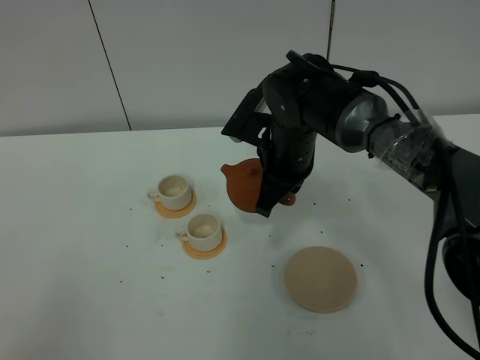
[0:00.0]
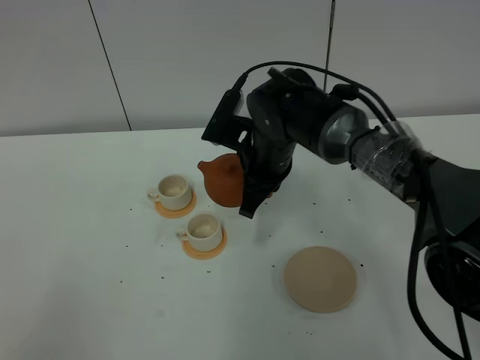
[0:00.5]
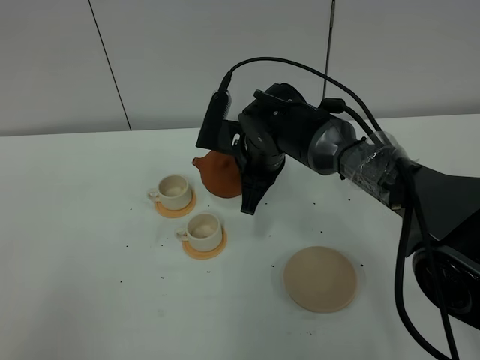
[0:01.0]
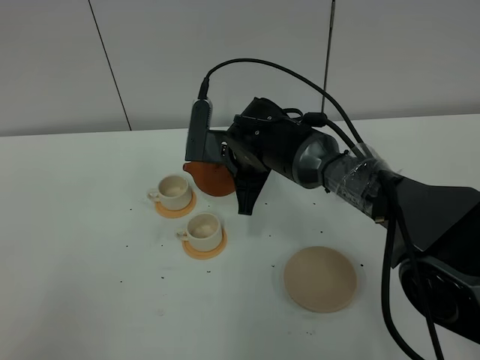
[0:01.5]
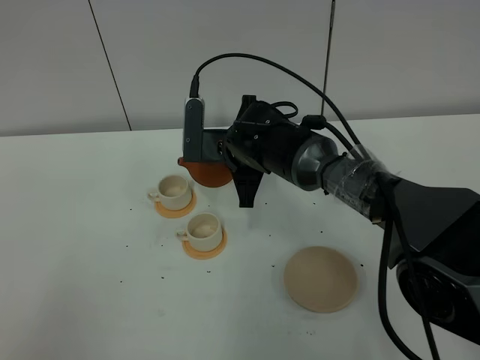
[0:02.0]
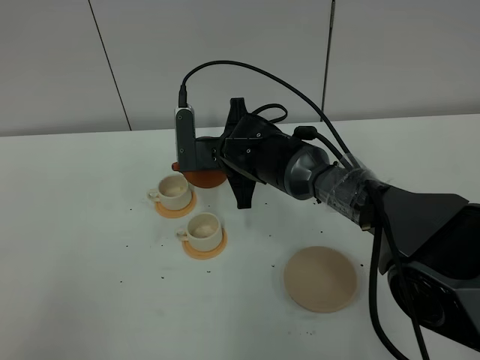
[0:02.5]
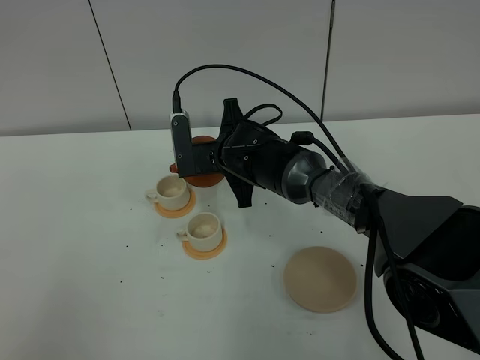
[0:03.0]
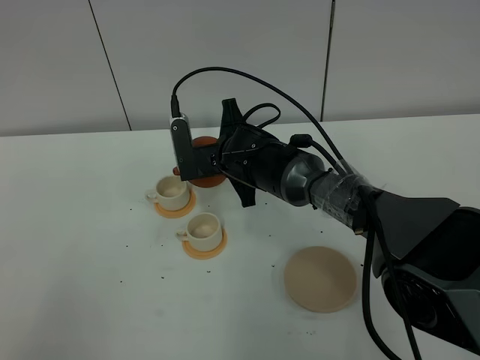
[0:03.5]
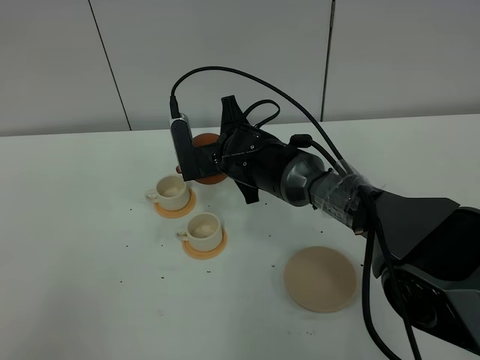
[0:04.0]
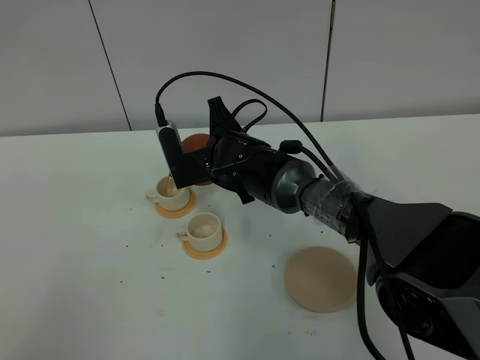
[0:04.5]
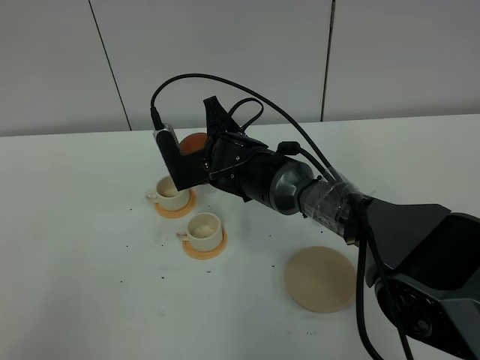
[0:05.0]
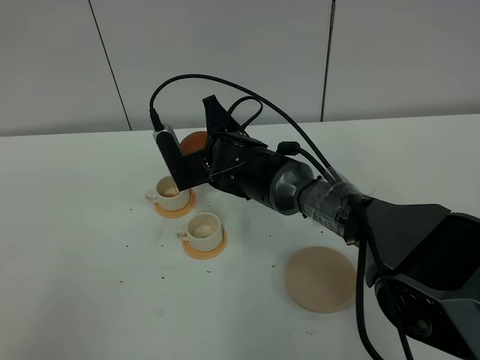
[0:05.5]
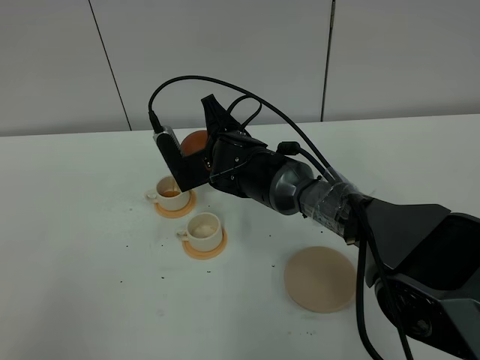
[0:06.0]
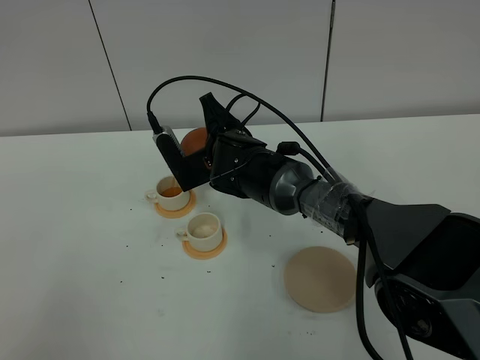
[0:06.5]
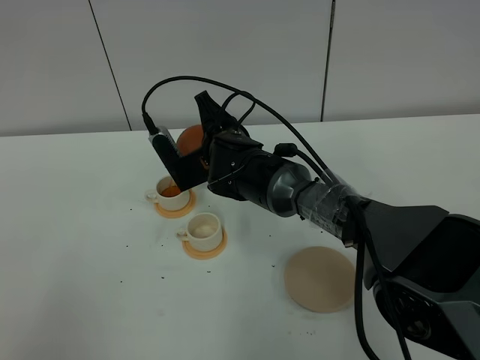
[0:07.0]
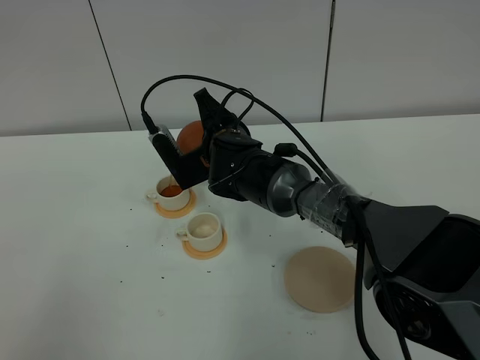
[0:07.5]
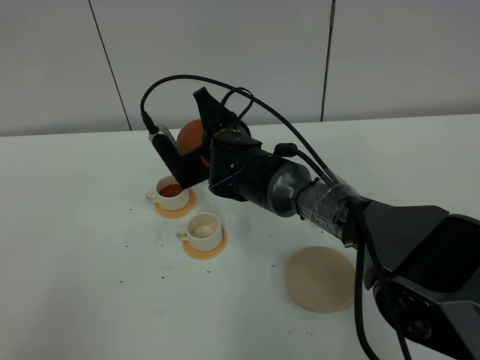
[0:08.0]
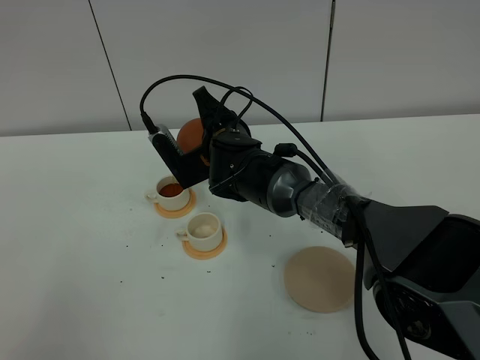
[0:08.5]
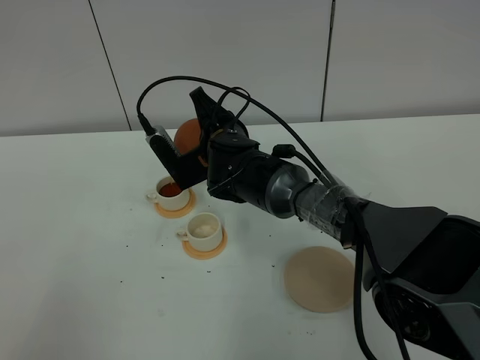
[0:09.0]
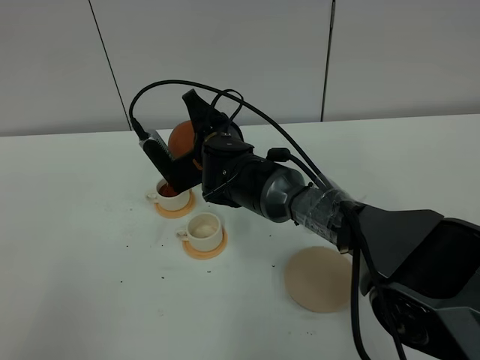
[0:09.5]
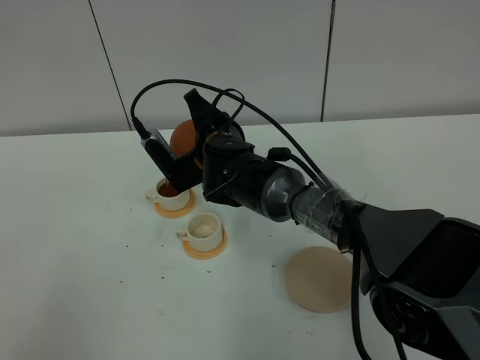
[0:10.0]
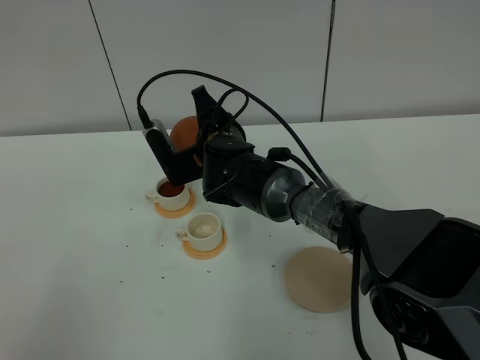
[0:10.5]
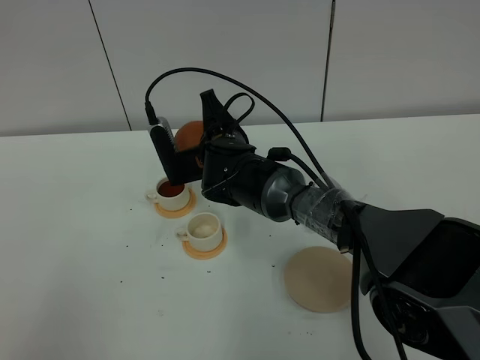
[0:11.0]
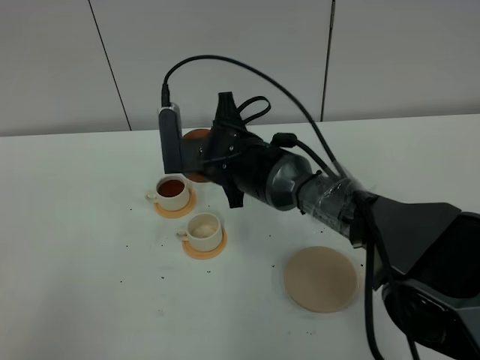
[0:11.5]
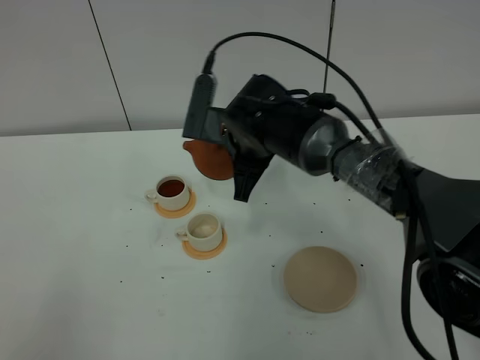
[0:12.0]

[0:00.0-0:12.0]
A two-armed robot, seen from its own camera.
Task of the whole recording: grasp the brown teapot and pour the tea into the two white teacups one by one, put the brown teapot back in its original place.
0.0 to 2.0 s: The right gripper heads to the left, covering some 5 cm.
2.0 to 4.0 s: The grippers make only small movements.
4.0 to 6.0 s: The grippers stay close to where they were, moving slightly.
6.0 to 8.0 s: There are only small adjustments of the grippers.
8.0 to 10.0 s: The two grippers keep their place.
10.0 to 12.0 s: The right gripper is displaced to the right by roughly 5 cm.

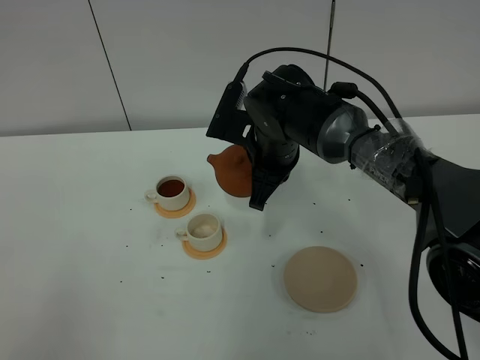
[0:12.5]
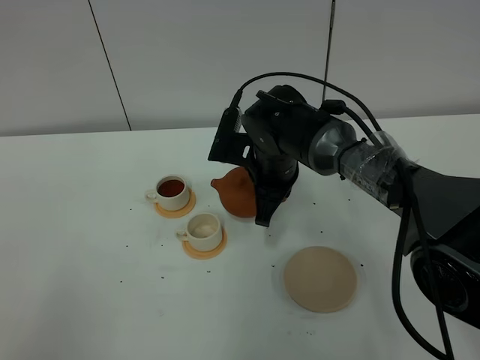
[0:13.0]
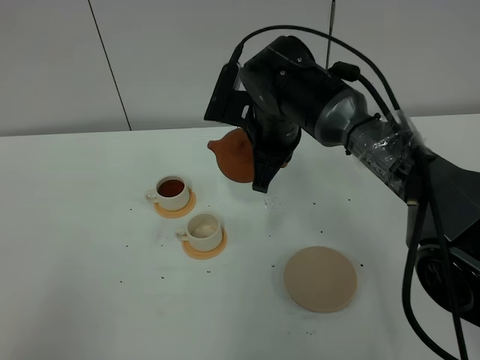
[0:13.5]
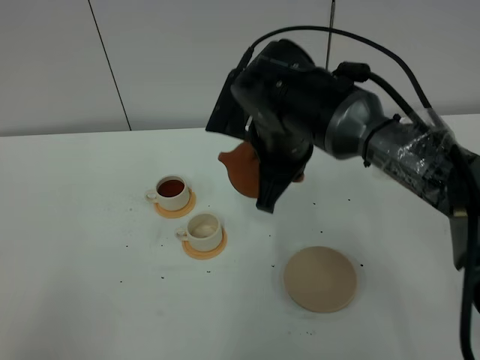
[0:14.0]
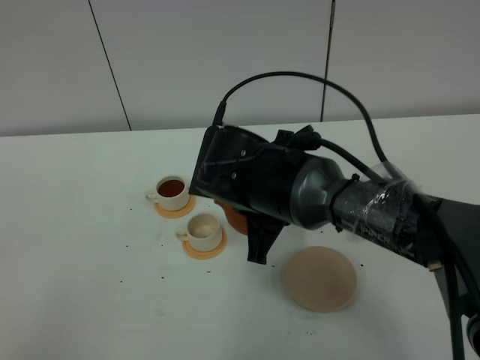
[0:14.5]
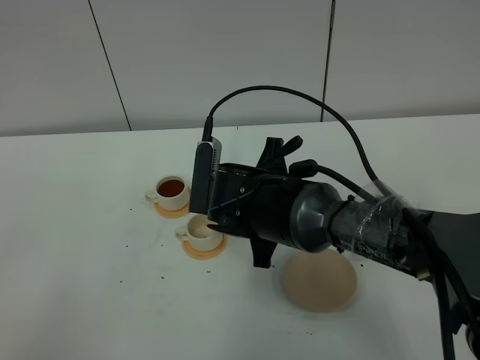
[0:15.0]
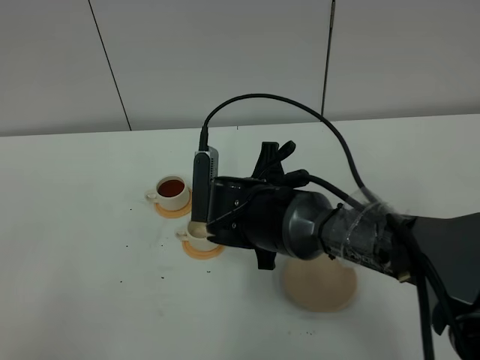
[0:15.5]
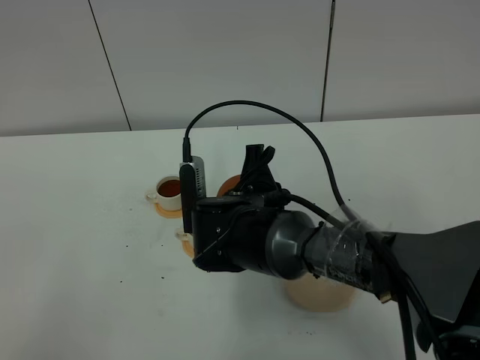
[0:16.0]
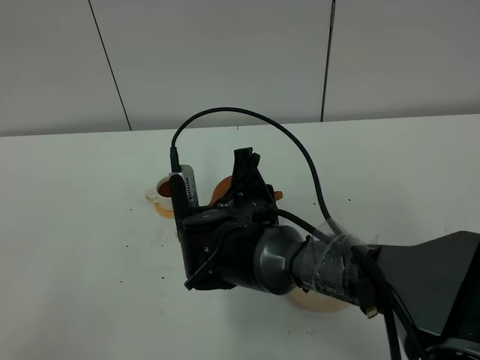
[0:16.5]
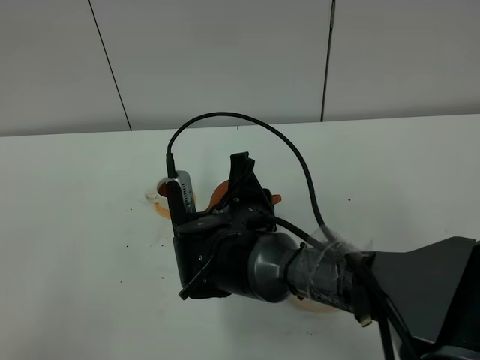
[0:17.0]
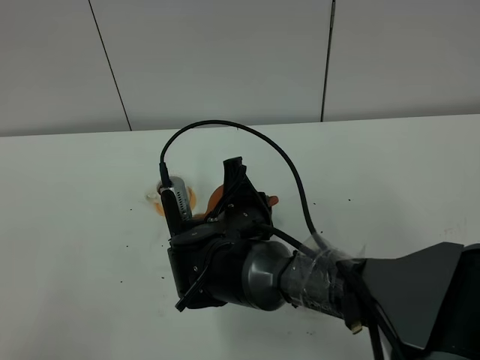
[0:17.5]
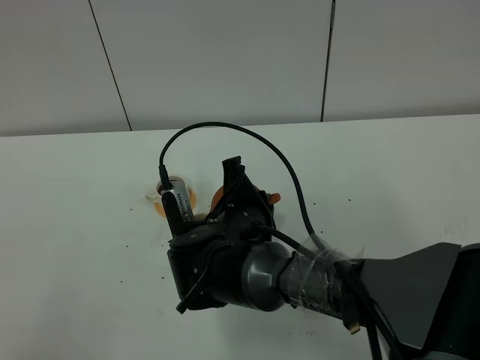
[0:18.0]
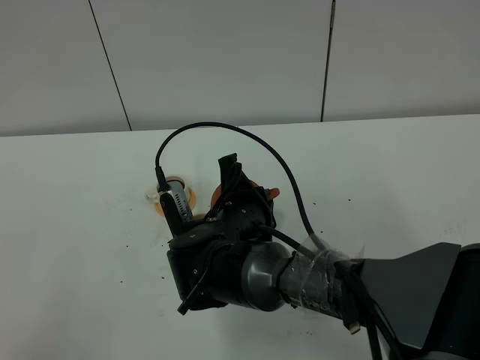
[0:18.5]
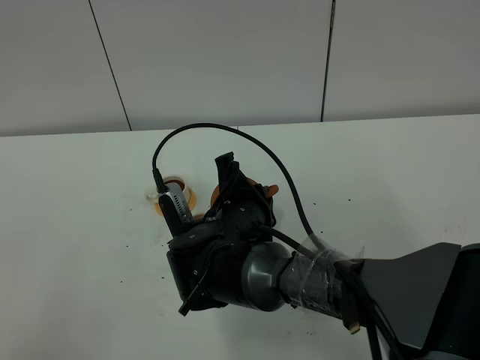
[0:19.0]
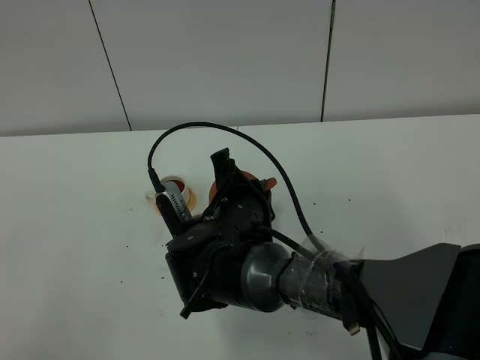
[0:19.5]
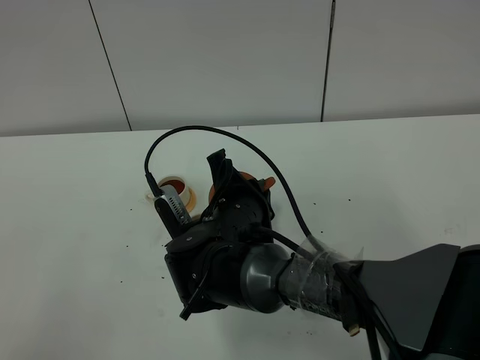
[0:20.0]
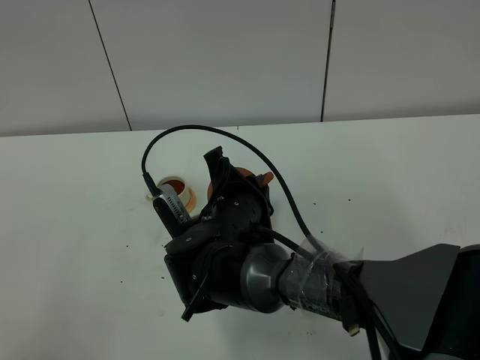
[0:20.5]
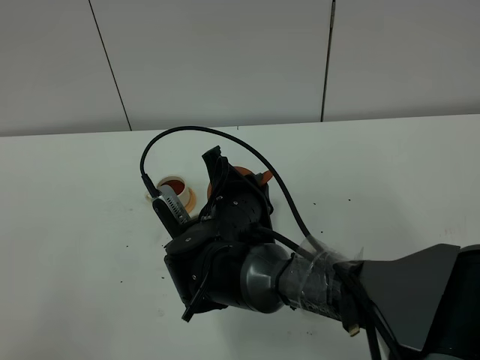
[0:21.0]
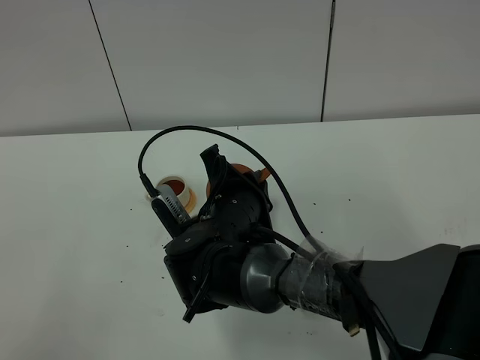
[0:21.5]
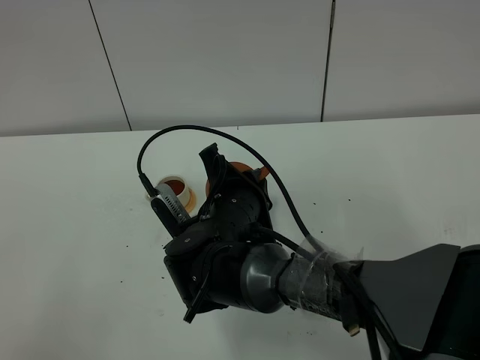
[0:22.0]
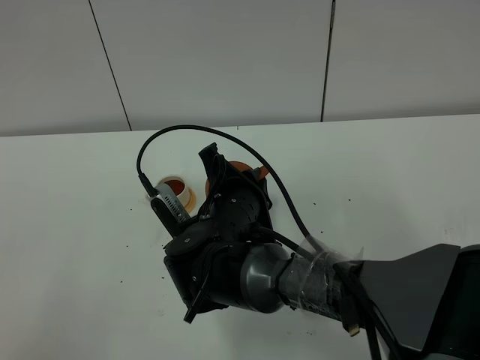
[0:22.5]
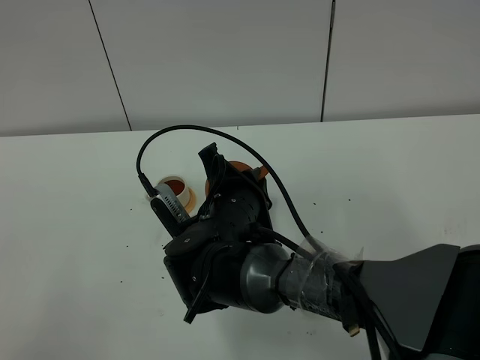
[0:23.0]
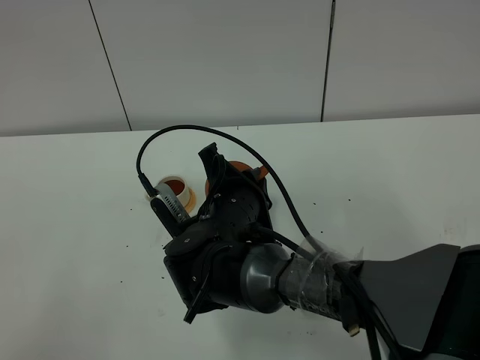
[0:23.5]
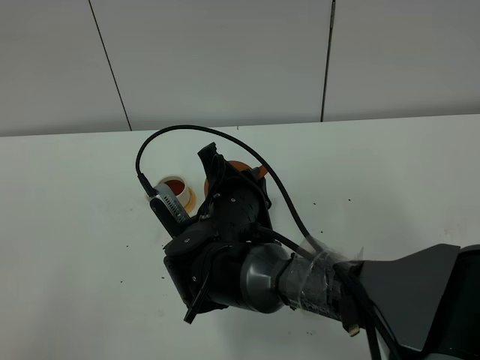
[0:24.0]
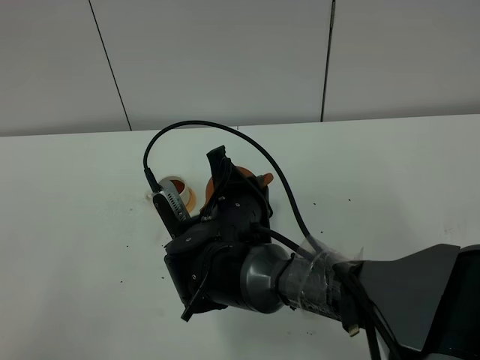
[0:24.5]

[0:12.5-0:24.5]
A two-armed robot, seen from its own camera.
Task of the whole recording: grasp the brown teapot and pour the tea into the two white teacups one by one, put the brown teapot back in its original place.
12.5 to 14.5 s: The right gripper travels backward by about 10 cm.
14.5 to 16.5 s: The right gripper moves some 5 cm.
16.5 to 18.5 s: The grippers make only small movements.
18.5 to 20.5 s: The grippers move only a little.
20.5 to 22.5 s: Neither gripper changes place.
22.5 to 24.5 s: There are only small adjustments of the grippers.

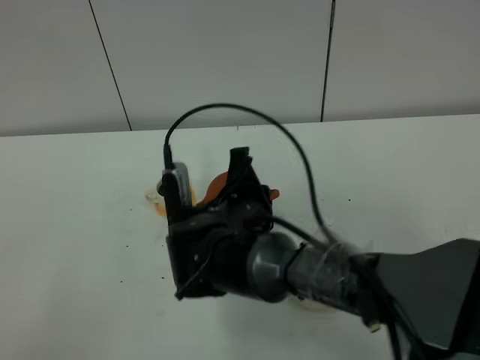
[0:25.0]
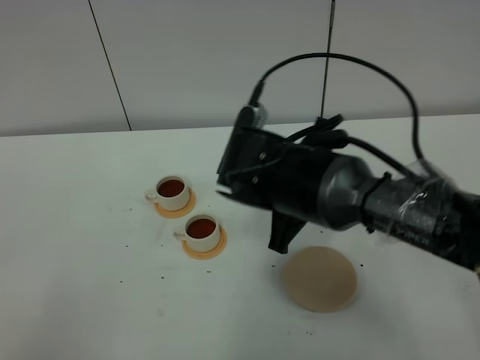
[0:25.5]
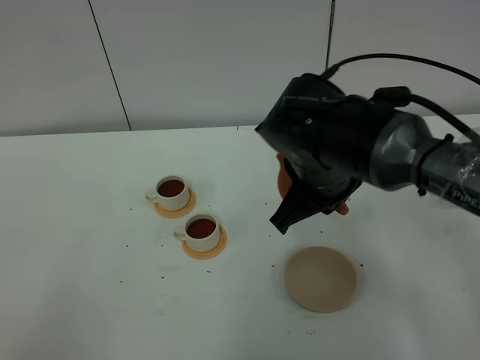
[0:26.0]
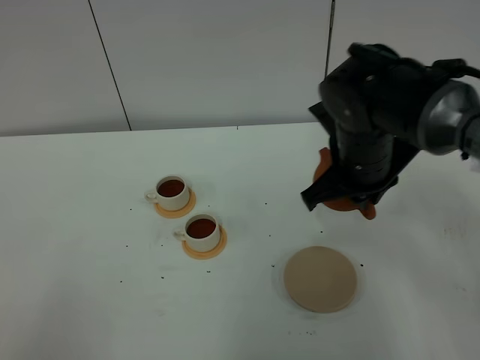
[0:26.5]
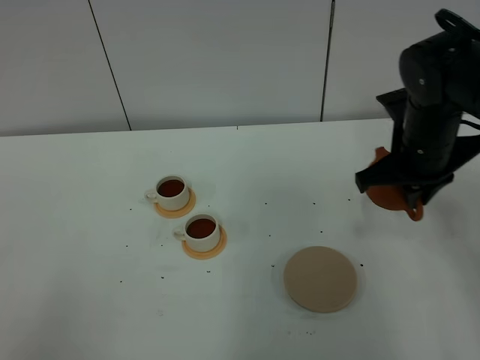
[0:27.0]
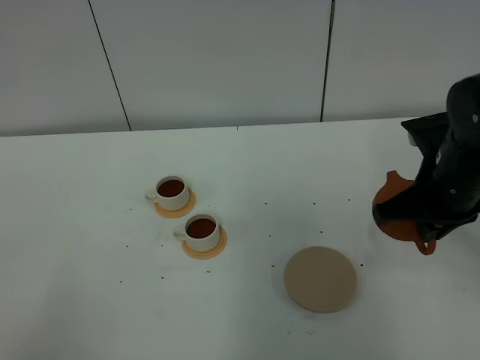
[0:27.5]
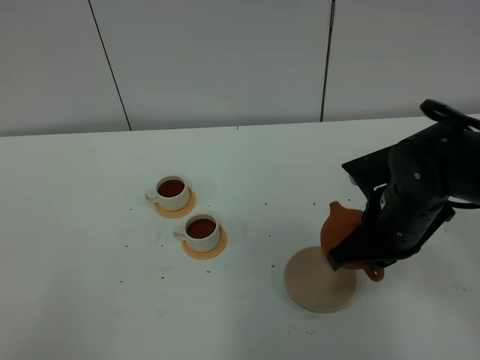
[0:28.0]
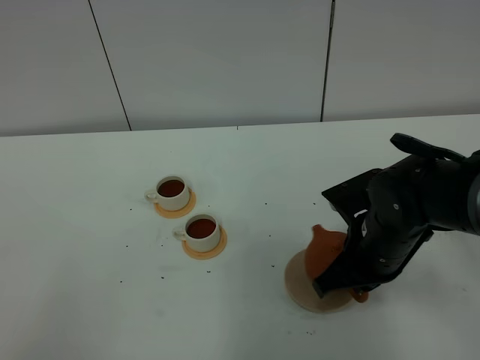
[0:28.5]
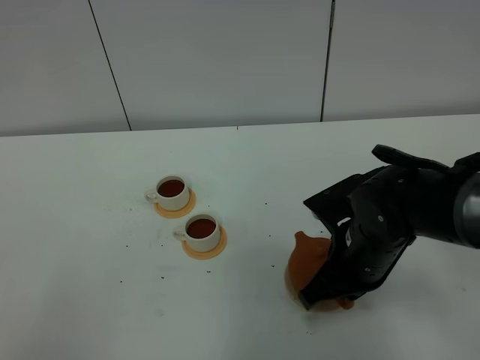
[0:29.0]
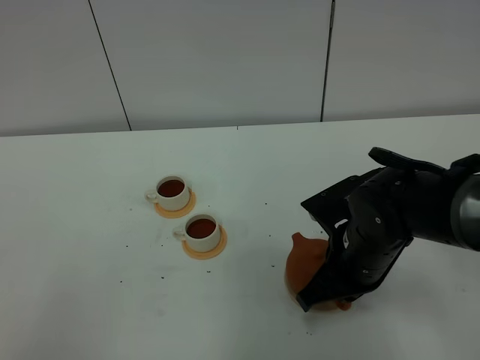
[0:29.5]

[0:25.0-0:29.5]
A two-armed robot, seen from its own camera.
Task of the whole recording: grasp the brown teapot and pour the tea into the two white teacups one by one, put the brown teapot back in its original place.
25.0 to 27.0 s: The right gripper travels to the right by about 20 cm.
27.0 to 29.5 s: The right gripper goes approximately 15 cm backward, to the left and downward.
